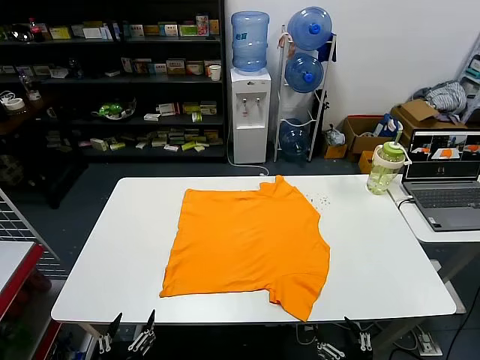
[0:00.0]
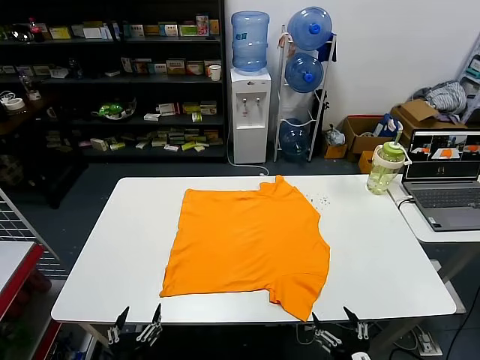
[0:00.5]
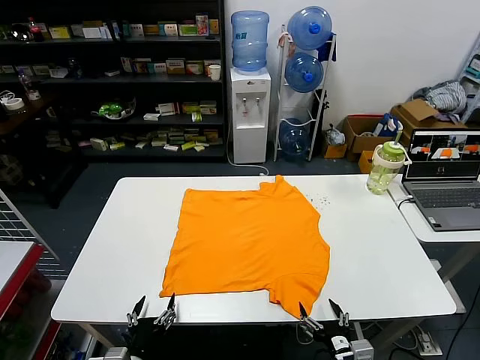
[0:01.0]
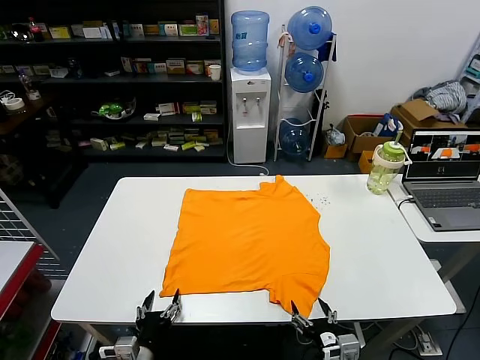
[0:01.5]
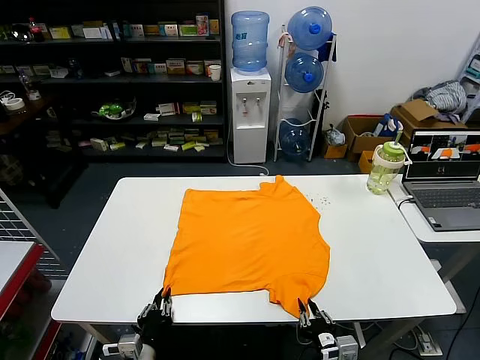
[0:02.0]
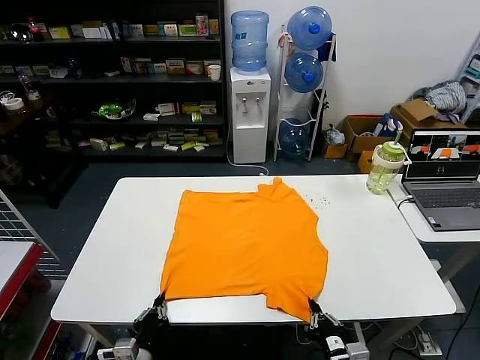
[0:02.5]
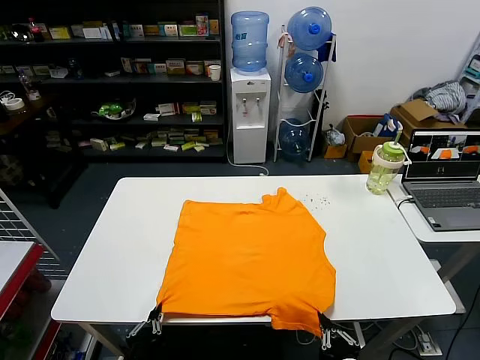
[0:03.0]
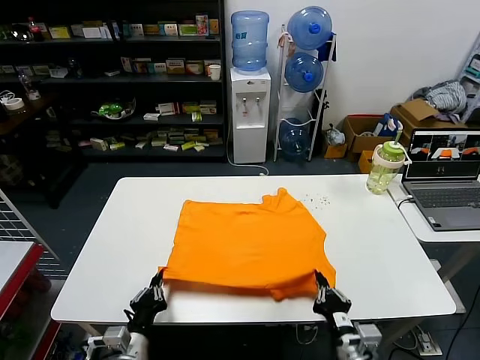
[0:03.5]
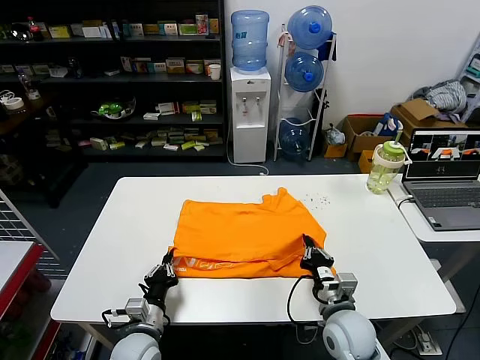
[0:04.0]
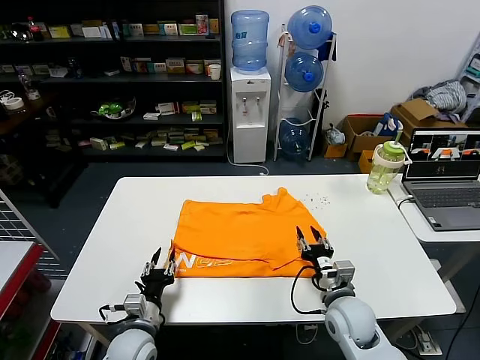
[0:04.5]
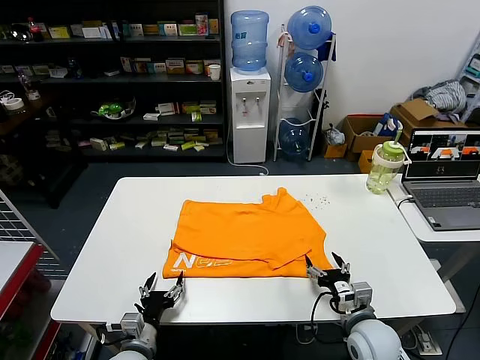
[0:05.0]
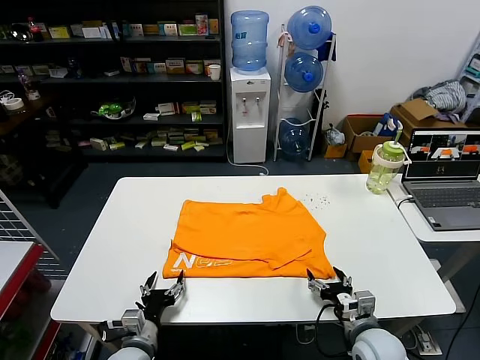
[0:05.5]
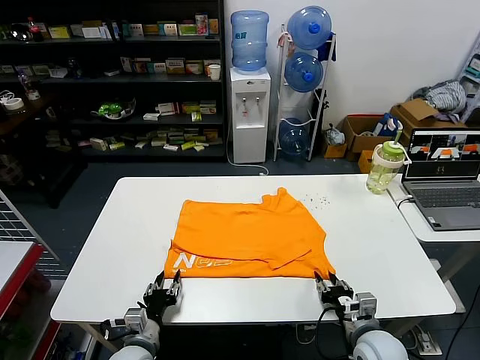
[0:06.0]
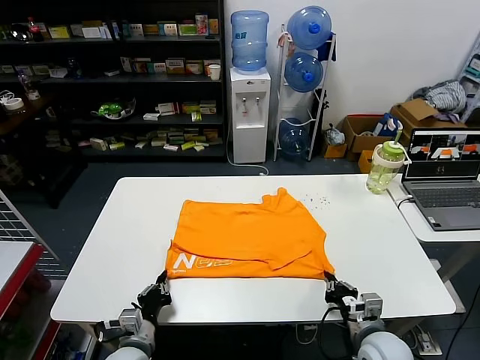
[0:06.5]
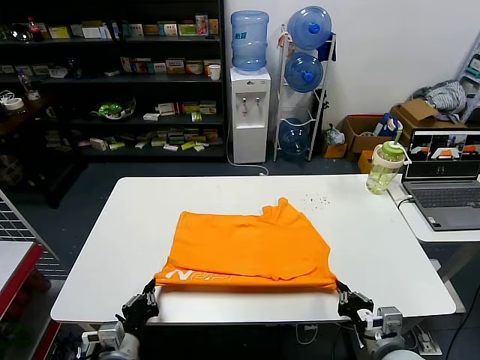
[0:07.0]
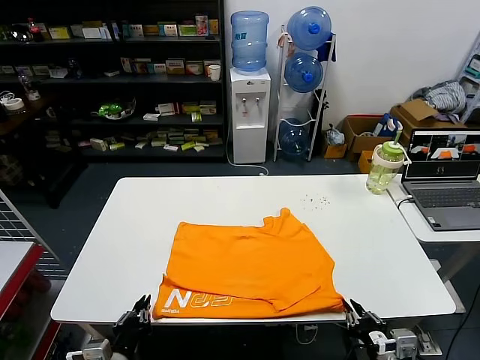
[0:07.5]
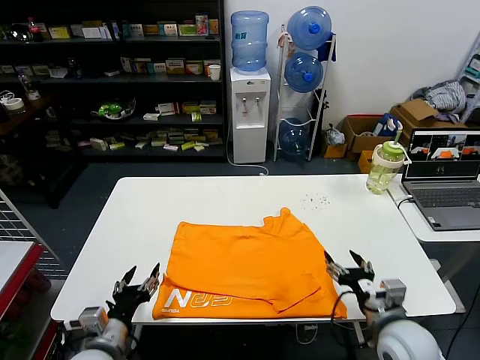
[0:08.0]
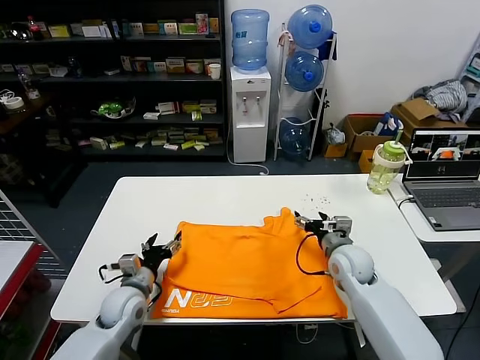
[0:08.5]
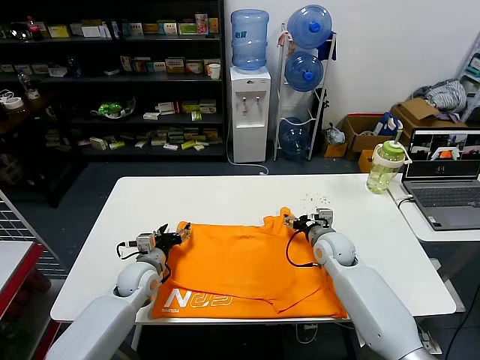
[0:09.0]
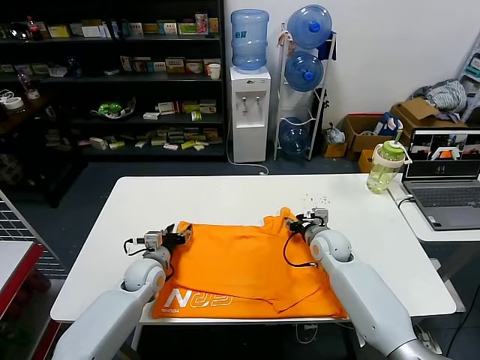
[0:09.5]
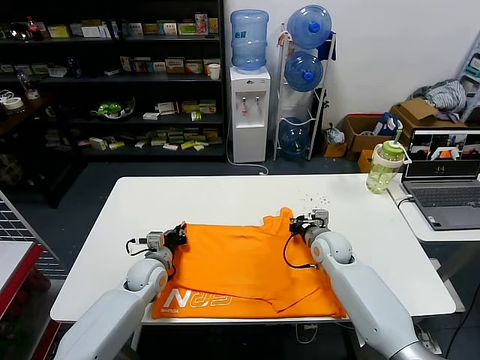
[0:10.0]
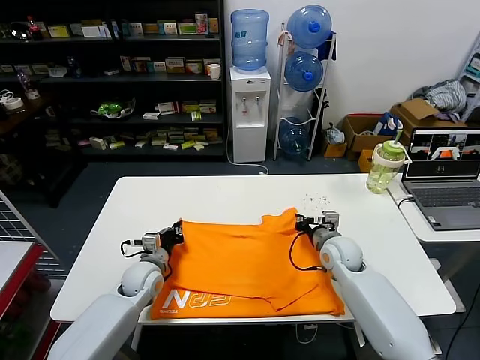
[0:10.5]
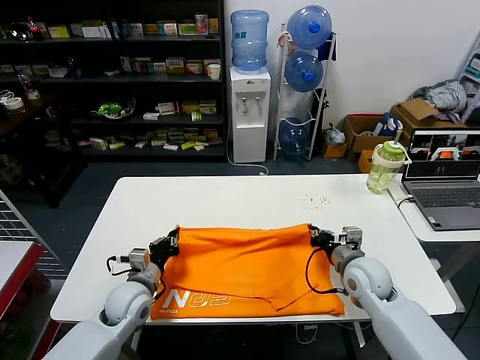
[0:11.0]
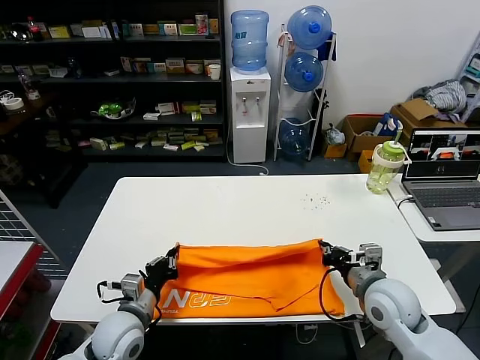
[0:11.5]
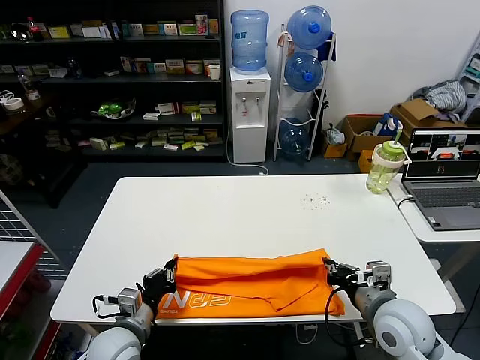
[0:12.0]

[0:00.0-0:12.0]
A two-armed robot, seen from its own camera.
Task of the whole recording: fold and organize the clothes.
Step, 0:00.0 to 0:02.0: use both grippers simultaneously to clamp the lower edge of the clothing fabric.
Step, 0:02.5 to 0:04.0: use both grippers to drag the lower edge of the fabric forward and fold it over the upper edge.
Step, 0:04.5 to 0:07.5: Drag the clothes downward with both gripper.
Step, 0:08.0 to 0:10.0: use both grippers simultaneously to clamp the upper edge of the clothing fabric.
0:02.0 to 0:04.0: The right gripper shifts about 15 cm forward; the left gripper heads forward, covering about 5 cm.
0:04.0 to 0:06.0: The left gripper opens up. Meanwhile the right gripper heads to the right, covering approximately 5 cm, and opens its fingers.
0:06.0 to 0:08.0: Both grippers move upward, some 10 cm. The left gripper closes, then reopens. Meanwhile the right gripper reaches roughly 10 cm backward, then returns, and opens up.
0:08.0 to 0:10.0: Both grippers move forward, approximately 25 cm. The left gripper closes its fingers. Meanwhile the right gripper closes.
0:10.0 to 0:12.0: The right gripper shifts approximately 25 cm backward and upward. Meanwhile the left gripper heads backward, covering roughly 20 cm.

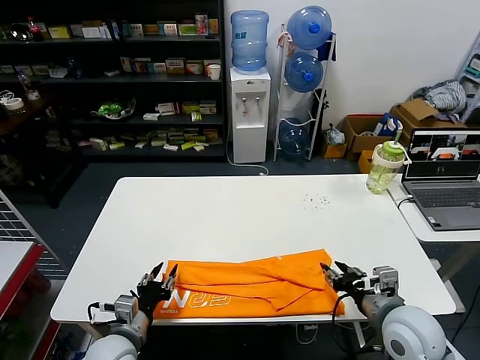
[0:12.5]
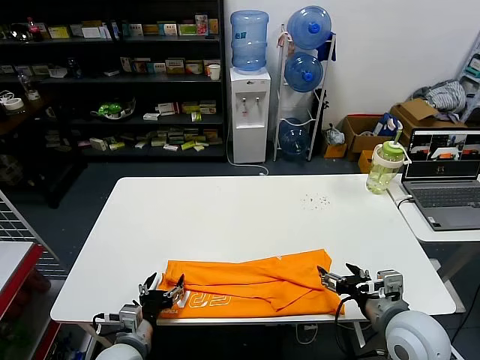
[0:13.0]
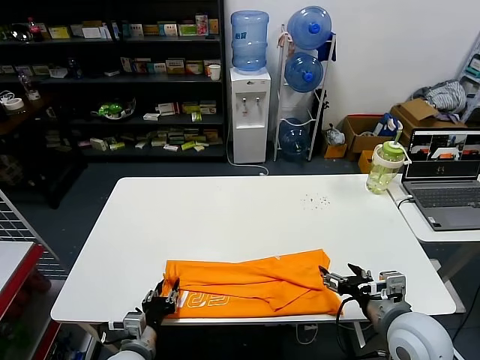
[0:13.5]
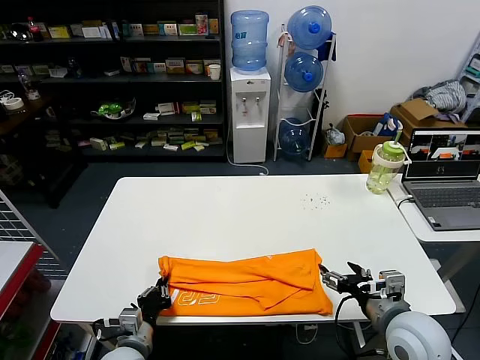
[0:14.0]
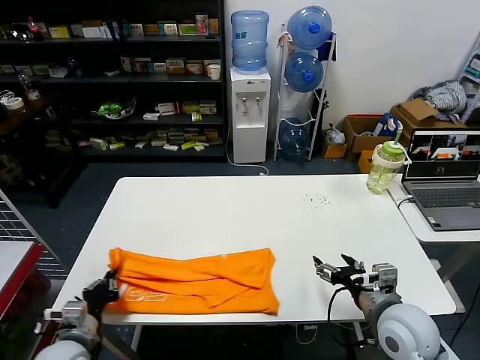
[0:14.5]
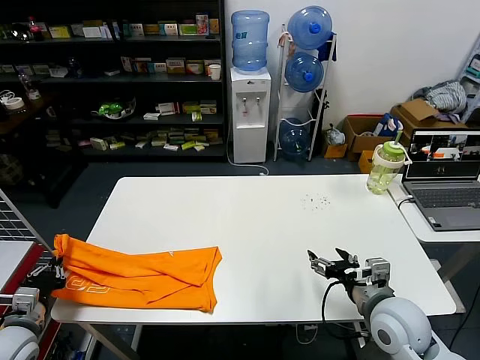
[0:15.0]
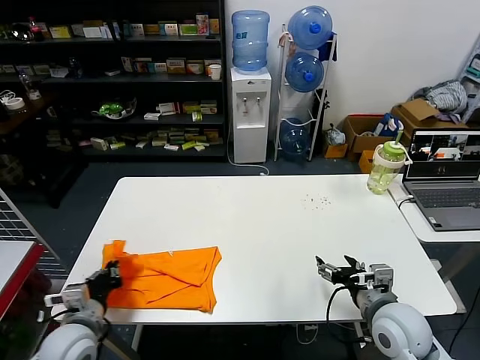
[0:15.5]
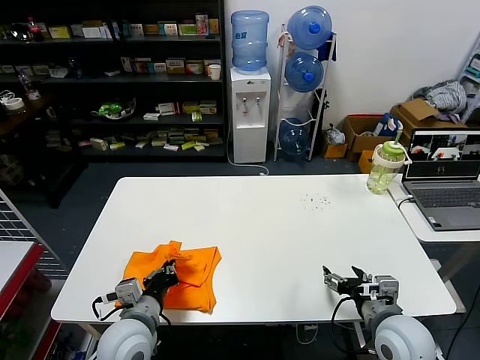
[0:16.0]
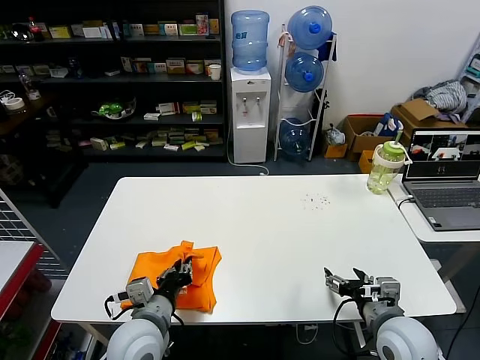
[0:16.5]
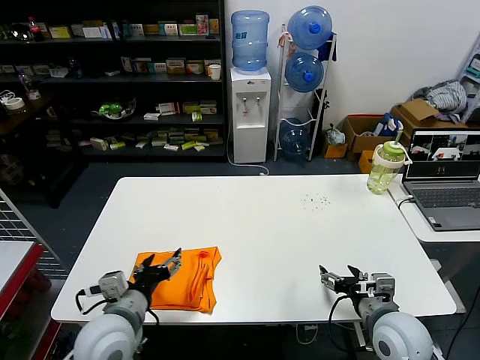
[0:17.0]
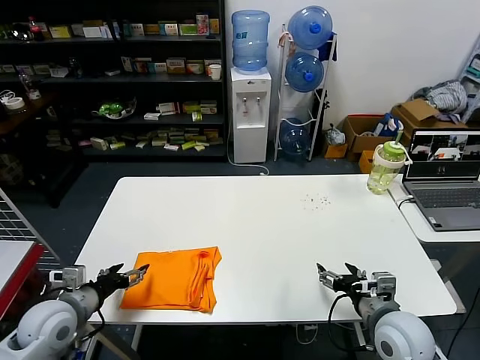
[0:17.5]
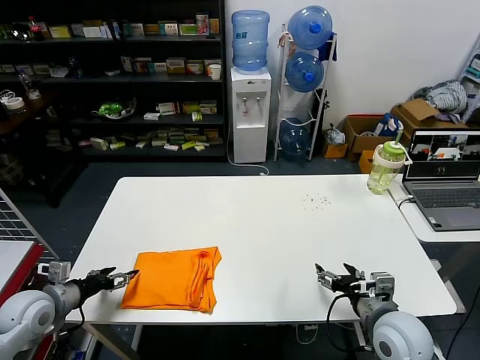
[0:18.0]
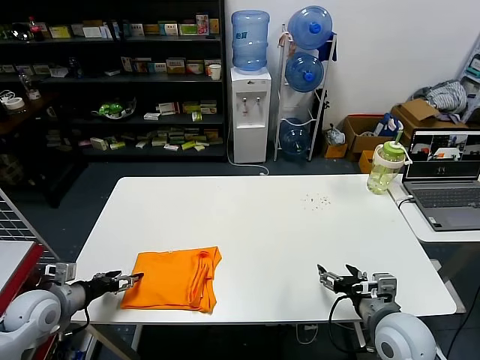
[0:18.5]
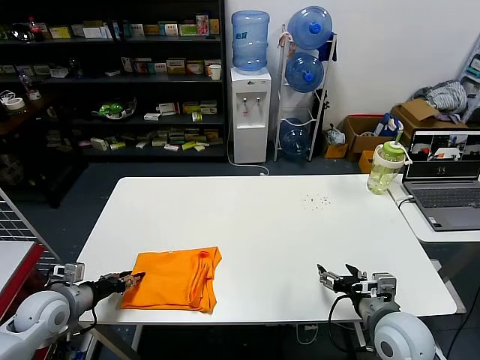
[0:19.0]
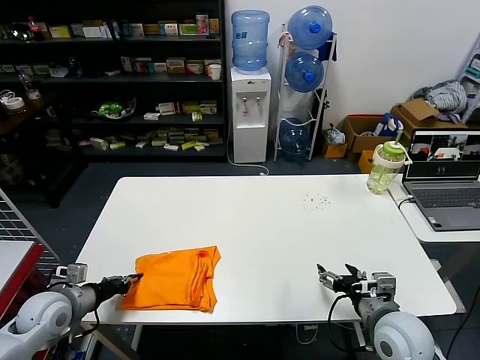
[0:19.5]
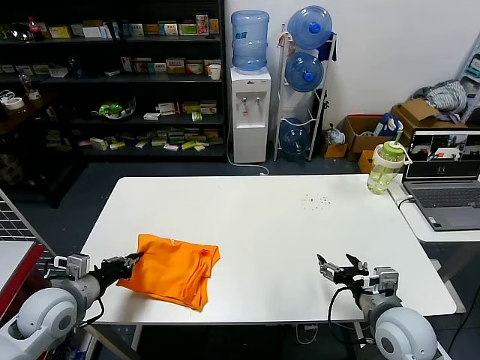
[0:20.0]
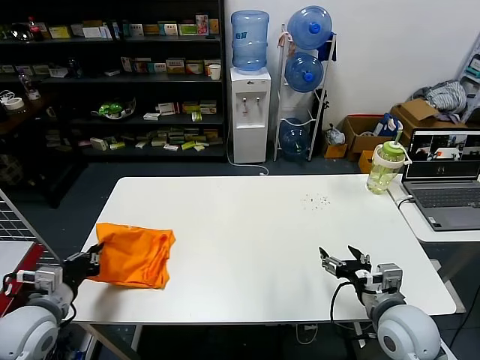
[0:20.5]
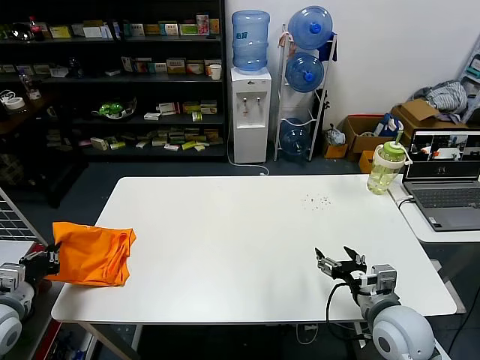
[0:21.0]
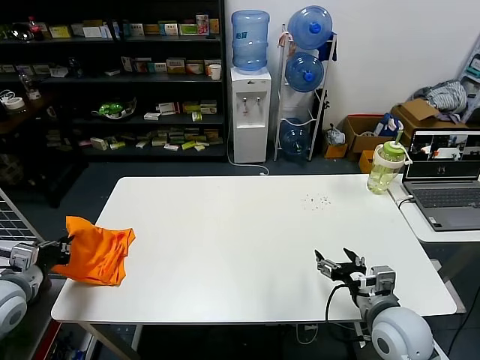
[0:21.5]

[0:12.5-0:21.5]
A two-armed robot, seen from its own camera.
Task of the whole recording: fold and organize the clothes.
Step, 0:12.5 to 0:13.5: use the left gripper to clamp the left edge of the fabric.
Step, 0:14.0 to 0:16.5: use the left gripper to drag the left edge of the fabric to the left and folds it over the right edge.
0:12.5 to 0:14.5: The right gripper opens; the left gripper goes about 10 cm to the left, and closes up.
0:14.5 to 0:17.0: The left gripper shifts about 15 cm to the right and upward, and opens up.
0:17.0 to 0:19.5: The left gripper heads to the left, covering some 20 cm, and closes up.
0:19.5 to 0:21.5: The left gripper shifts approximately 10 cm upward.

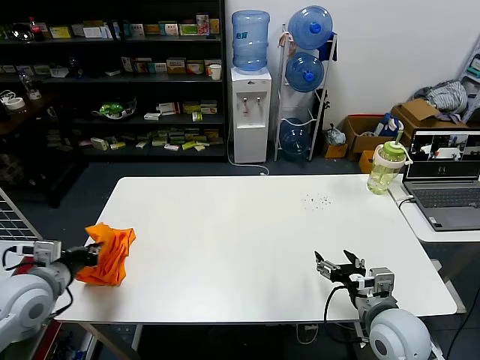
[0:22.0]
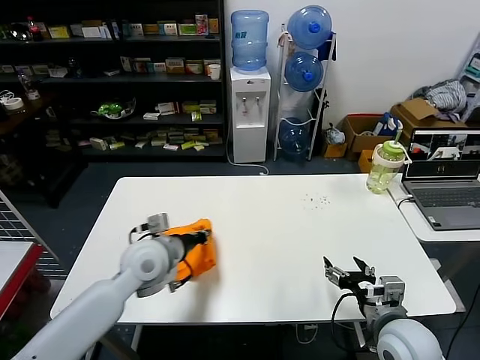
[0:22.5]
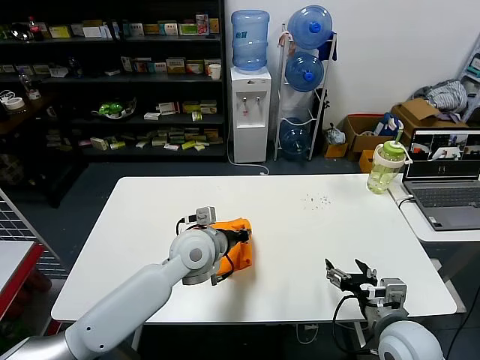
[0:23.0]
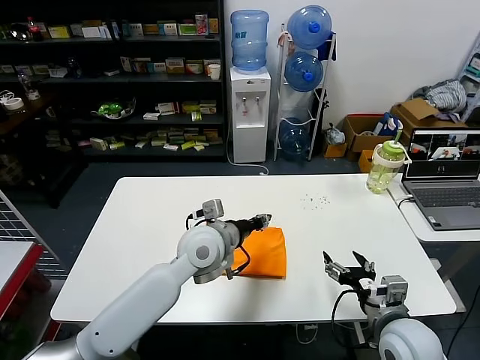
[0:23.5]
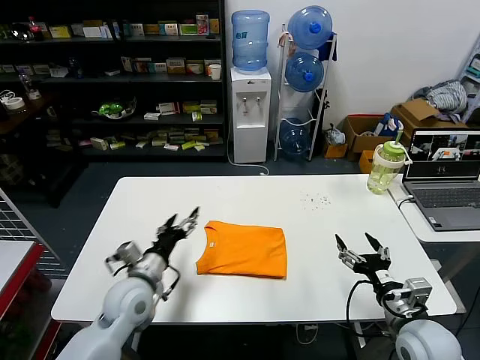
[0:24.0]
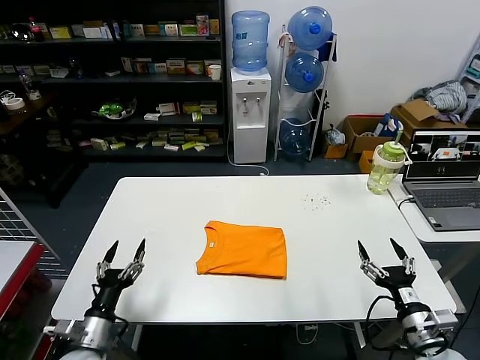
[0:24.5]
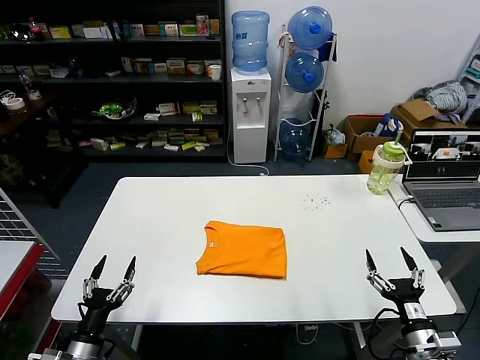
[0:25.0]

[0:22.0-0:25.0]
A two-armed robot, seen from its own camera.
Task of the whole recording: fold and organize the clothes.
0:22.0 to 0:23.5: The left gripper is displaced to the right by some 35 cm, and opens its fingers.
0:23.5 to 0:25.0: The left gripper goes some 40 cm to the left, backward and downward, and opens its fingers, while the right gripper is displaced to the right, downward and backward by about 10 cm.
